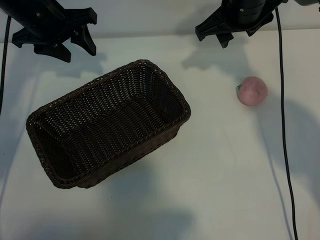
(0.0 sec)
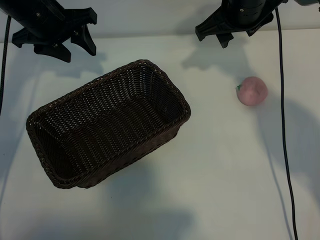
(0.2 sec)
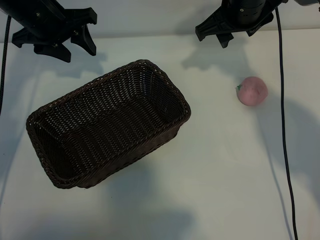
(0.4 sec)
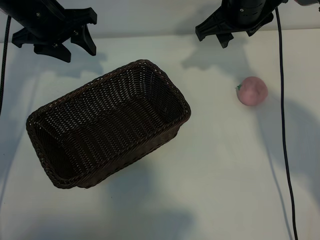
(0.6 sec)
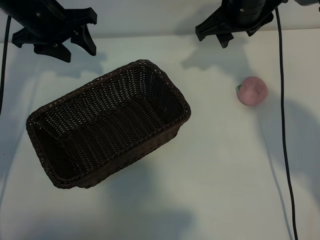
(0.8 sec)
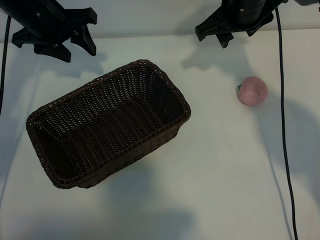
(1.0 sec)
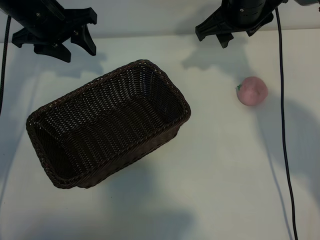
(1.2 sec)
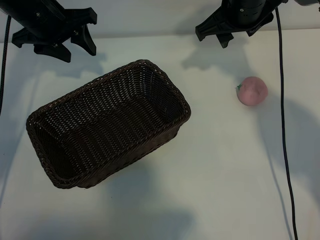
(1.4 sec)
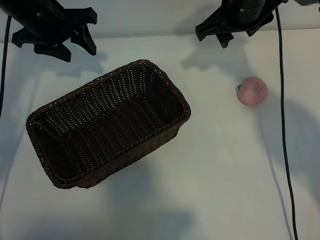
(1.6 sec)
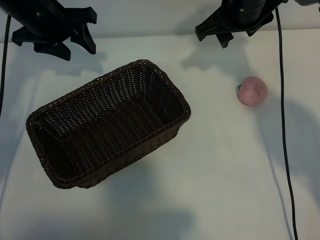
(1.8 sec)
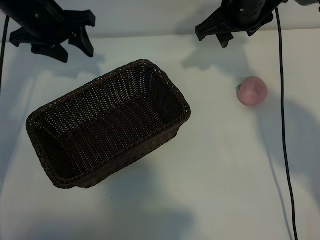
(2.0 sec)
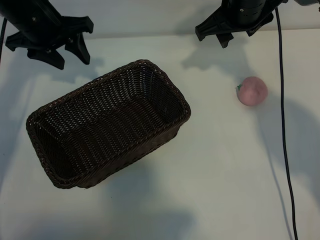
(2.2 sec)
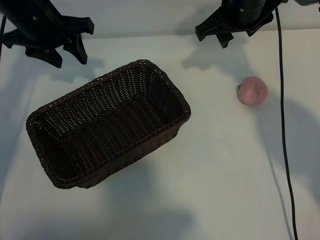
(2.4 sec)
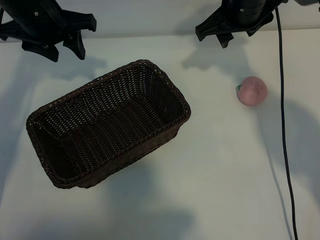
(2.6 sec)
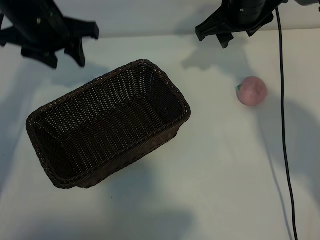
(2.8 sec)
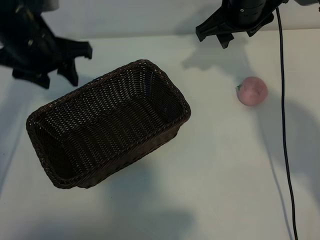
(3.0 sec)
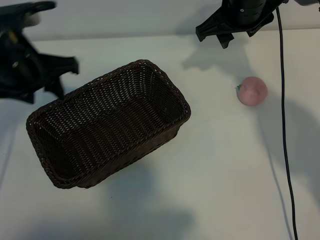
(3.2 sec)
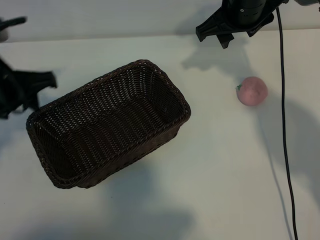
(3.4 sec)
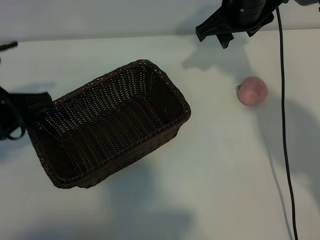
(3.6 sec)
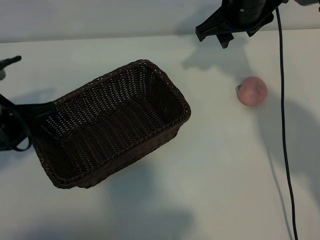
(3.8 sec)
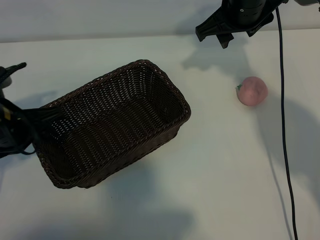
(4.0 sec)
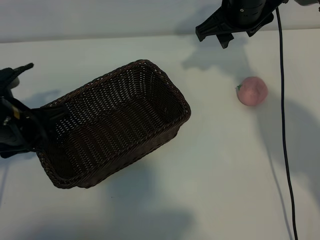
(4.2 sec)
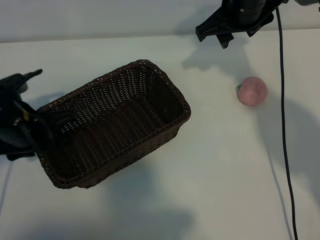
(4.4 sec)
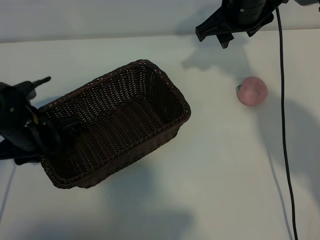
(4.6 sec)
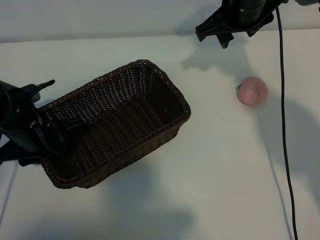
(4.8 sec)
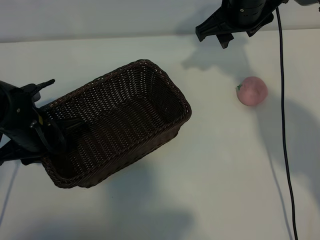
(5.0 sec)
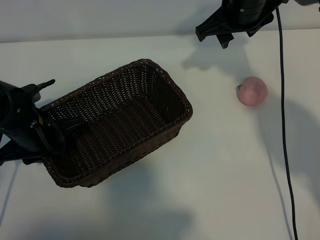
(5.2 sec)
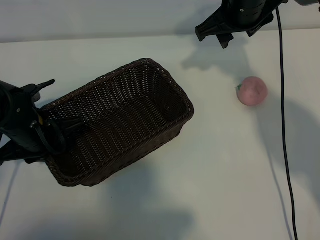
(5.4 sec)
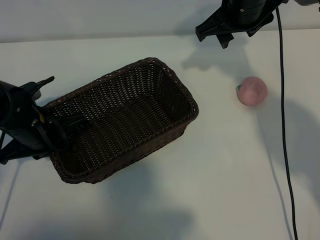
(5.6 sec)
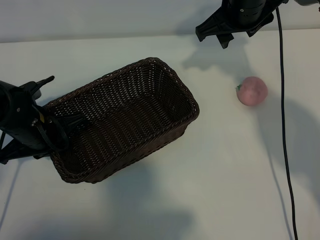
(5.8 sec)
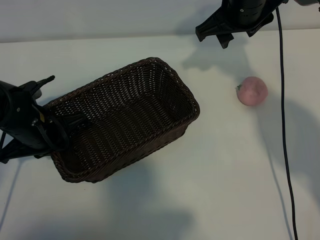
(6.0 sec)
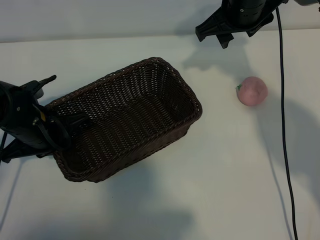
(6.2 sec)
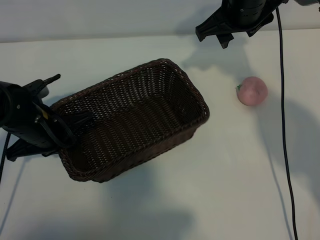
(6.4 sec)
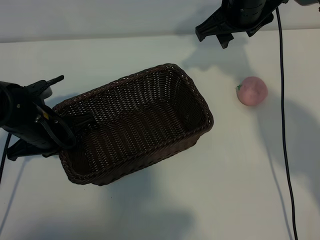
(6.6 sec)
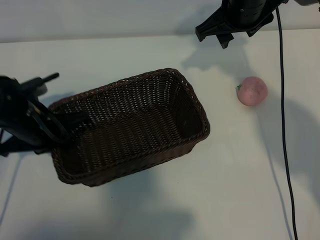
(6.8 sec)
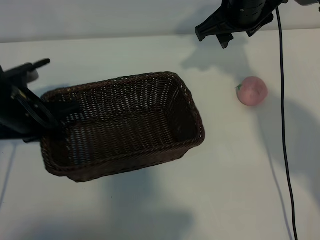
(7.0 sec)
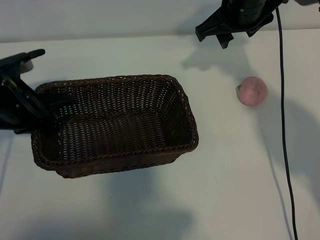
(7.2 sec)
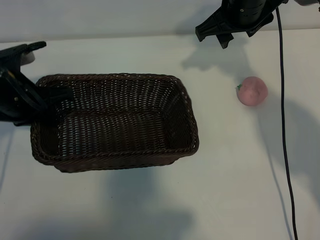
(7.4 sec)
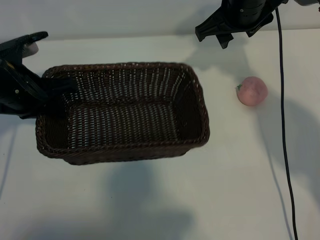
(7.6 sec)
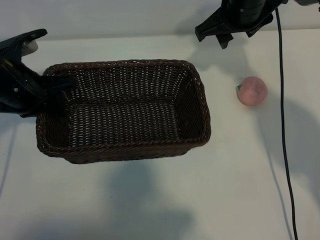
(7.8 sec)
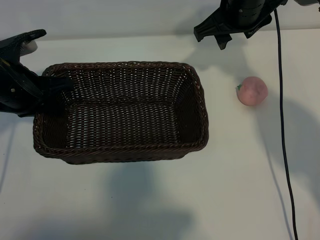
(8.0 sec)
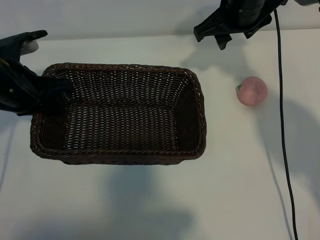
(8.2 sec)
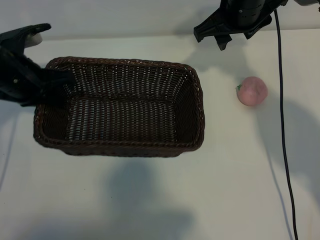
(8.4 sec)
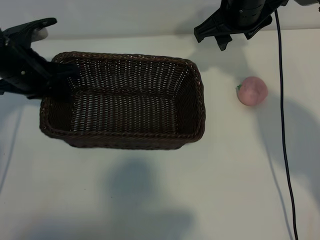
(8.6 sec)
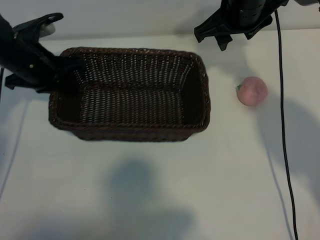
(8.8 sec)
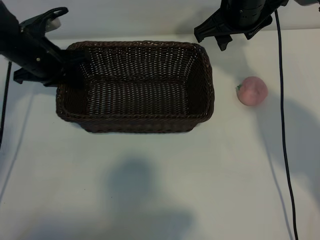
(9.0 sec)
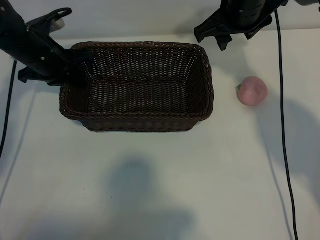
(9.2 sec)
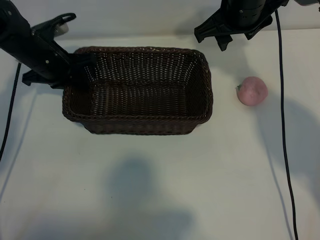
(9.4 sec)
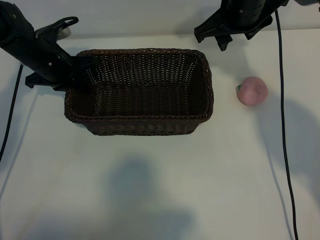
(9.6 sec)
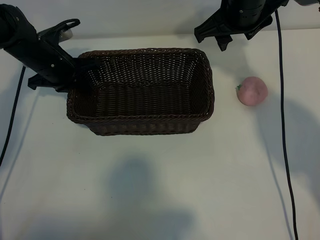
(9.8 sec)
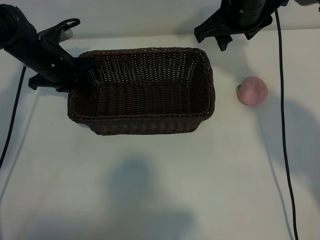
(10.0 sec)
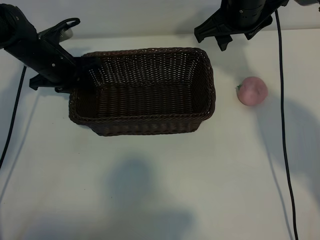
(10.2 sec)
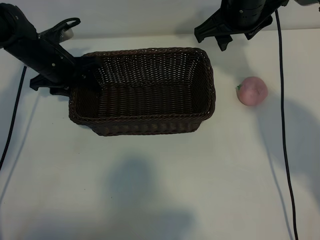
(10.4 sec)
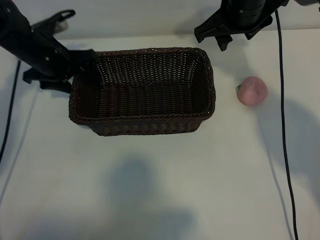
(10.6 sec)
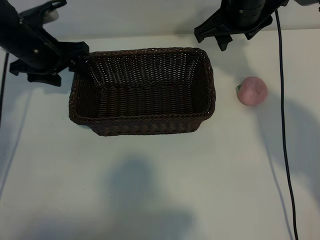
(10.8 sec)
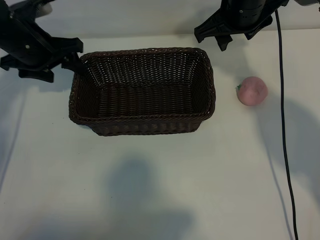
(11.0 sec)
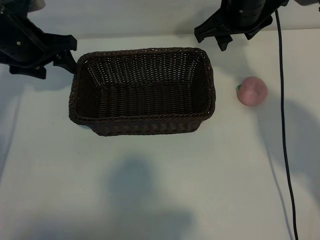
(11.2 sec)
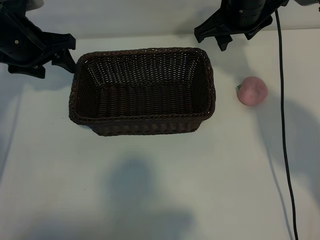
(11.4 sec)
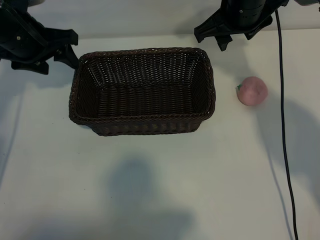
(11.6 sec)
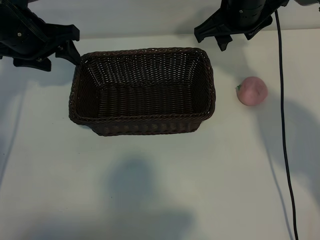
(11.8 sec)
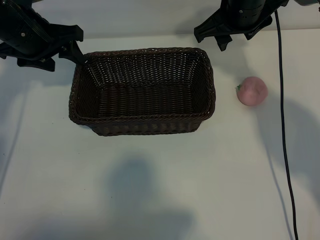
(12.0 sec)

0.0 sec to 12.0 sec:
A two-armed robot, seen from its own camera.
Task of the whole recording: pick up the peach and put it into the basket.
Step, 2.0 sec to 5.6 sec: Grasp the basket with left gripper.
Step, 5.8 sec to 10.4 sec: Place the basket in the center of view with left gripper.

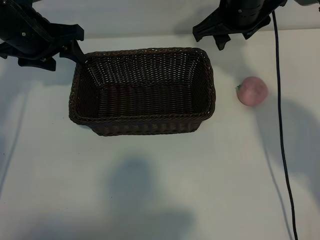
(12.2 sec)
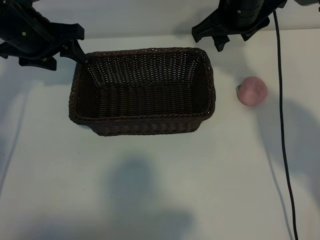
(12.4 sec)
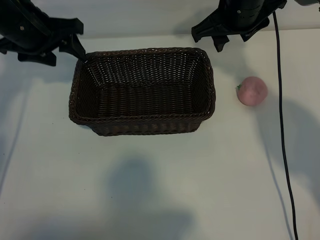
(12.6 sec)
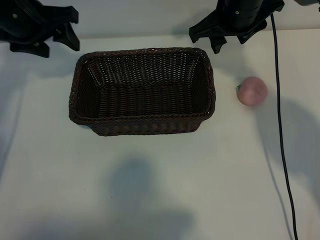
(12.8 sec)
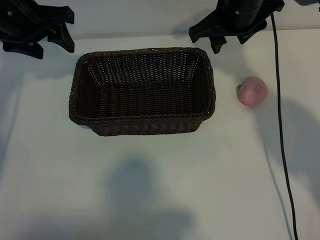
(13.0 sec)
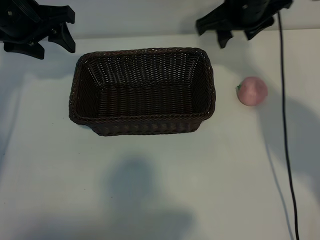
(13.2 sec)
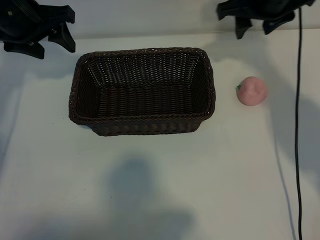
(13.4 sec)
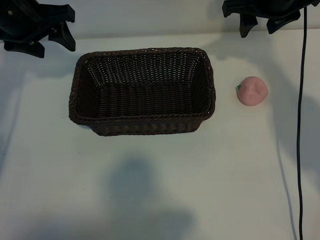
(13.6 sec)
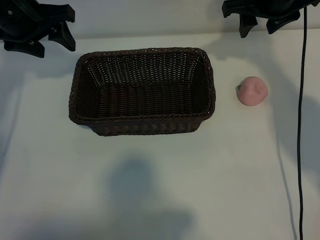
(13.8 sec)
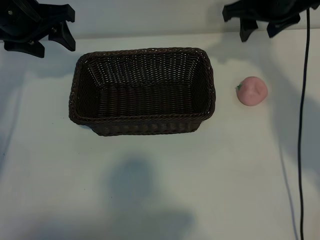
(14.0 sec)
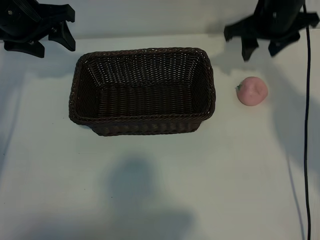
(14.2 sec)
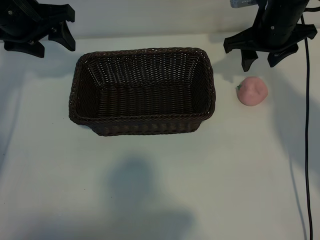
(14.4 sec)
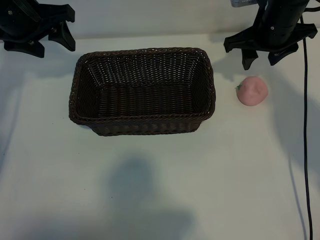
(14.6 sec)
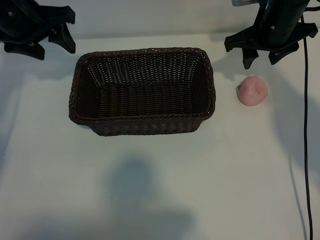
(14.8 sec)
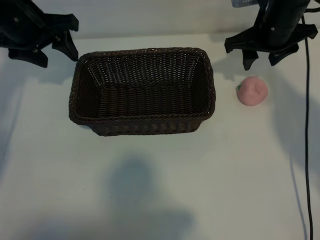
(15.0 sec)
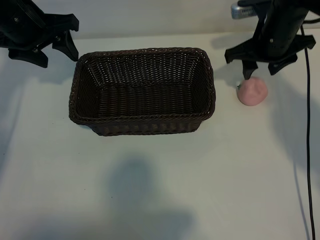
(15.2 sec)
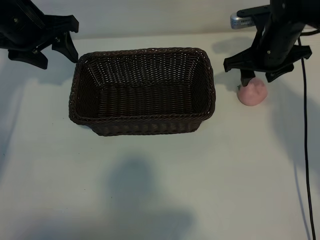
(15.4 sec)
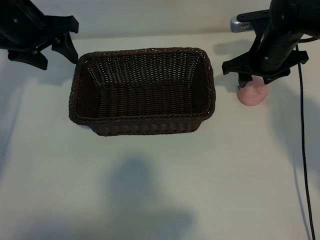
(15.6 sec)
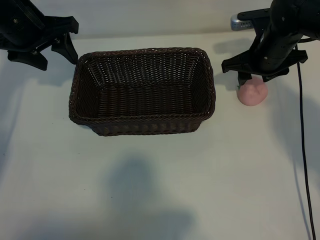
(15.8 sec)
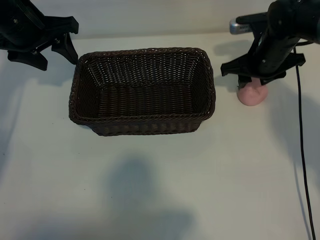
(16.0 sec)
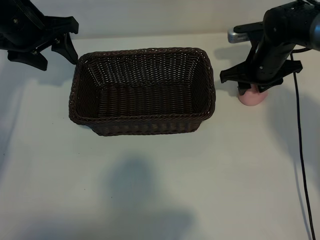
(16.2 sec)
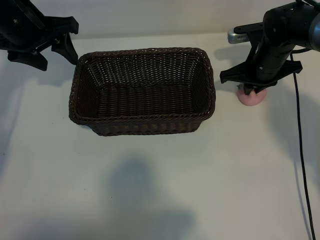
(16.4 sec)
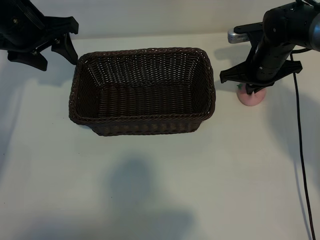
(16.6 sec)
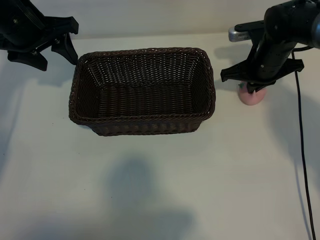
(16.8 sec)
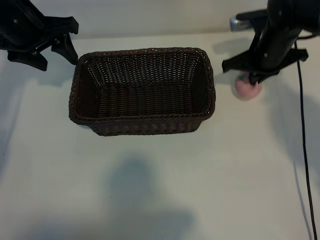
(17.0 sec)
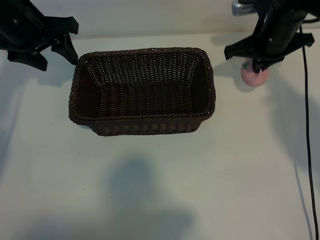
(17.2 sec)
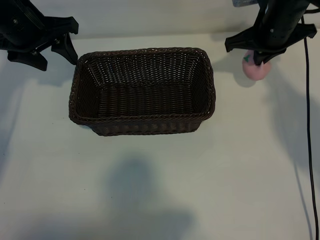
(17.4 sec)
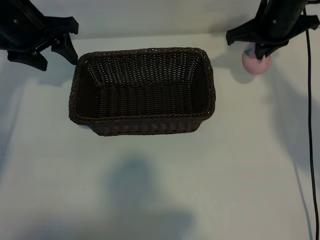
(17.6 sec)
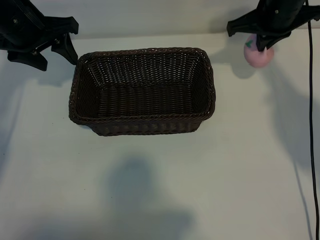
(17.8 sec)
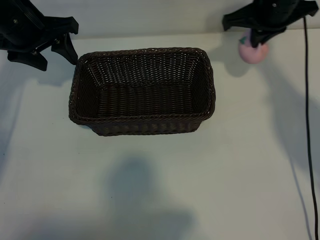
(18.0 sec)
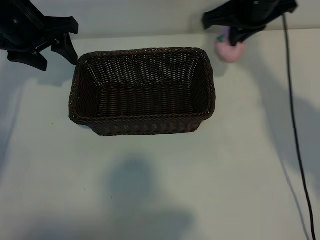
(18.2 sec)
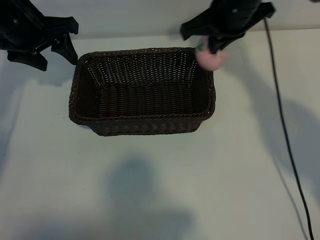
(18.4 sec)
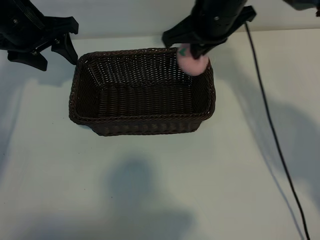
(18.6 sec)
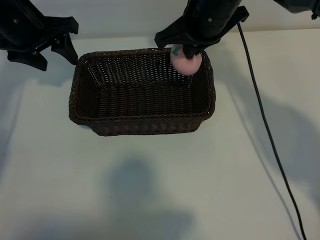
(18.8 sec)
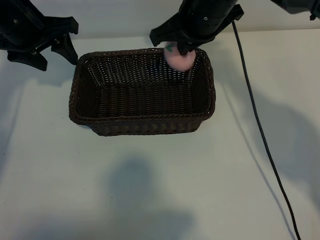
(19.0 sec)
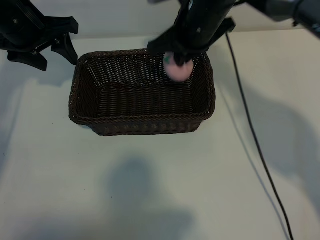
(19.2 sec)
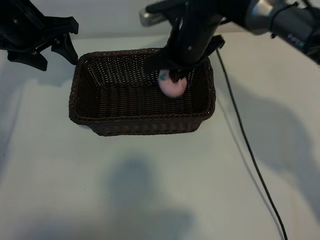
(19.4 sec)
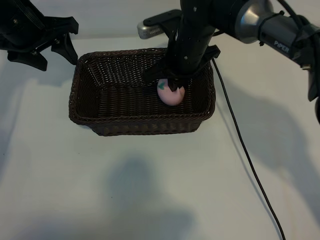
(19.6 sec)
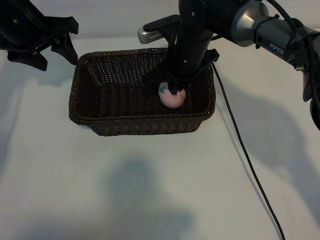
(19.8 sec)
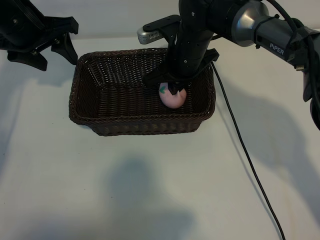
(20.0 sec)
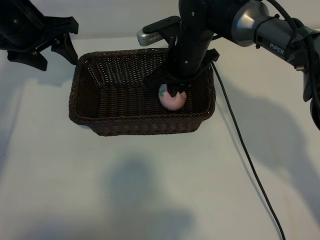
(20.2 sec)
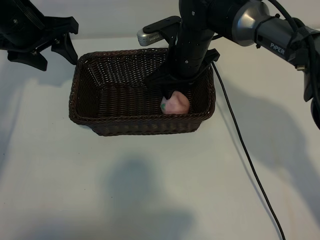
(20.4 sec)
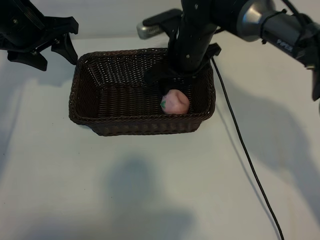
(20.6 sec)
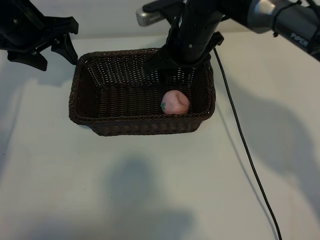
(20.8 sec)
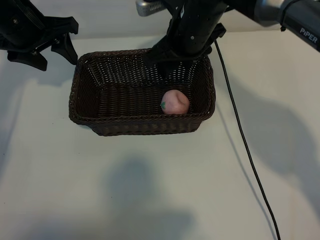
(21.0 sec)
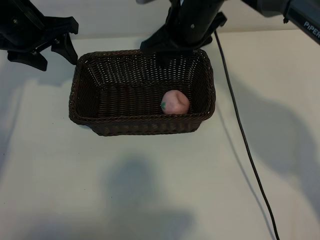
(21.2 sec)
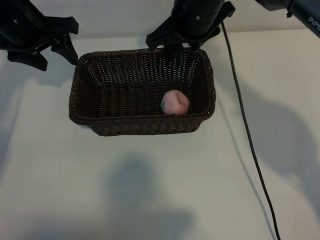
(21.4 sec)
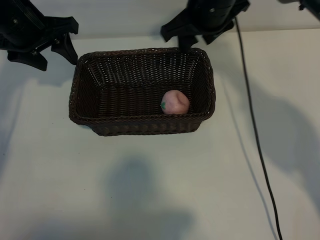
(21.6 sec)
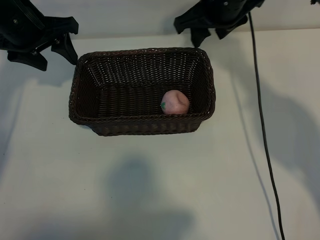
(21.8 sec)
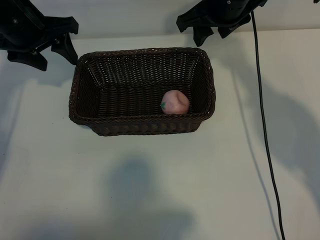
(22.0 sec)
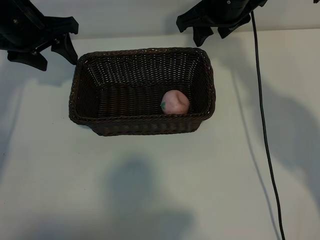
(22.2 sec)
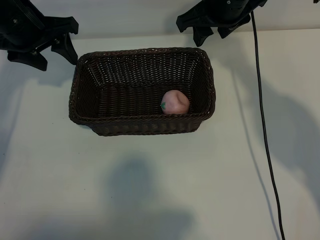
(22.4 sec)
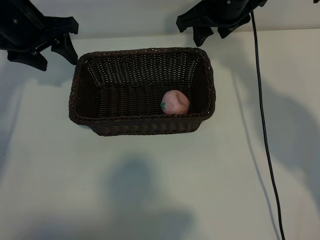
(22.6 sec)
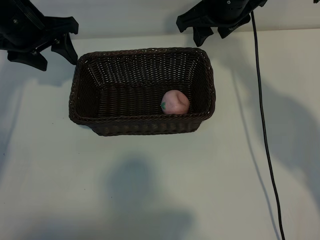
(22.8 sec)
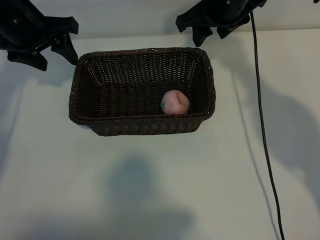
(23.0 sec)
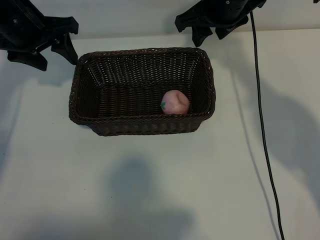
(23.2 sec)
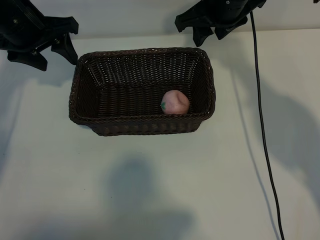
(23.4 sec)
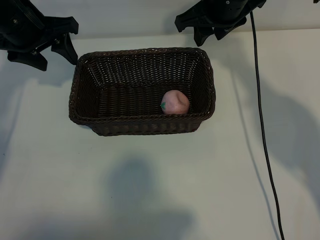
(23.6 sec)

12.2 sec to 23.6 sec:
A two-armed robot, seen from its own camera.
Task of the whole recording: pick up the peach and put it into the basket.
Step, 12.2 sec to 16.6 sec: Grasp the peach with right gripper.
Step, 16.8 sec to 20.4 sec: Place the peach in the basket with right gripper.
